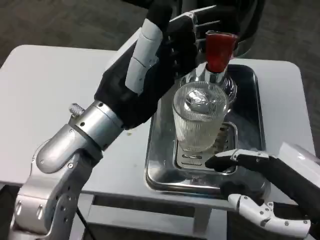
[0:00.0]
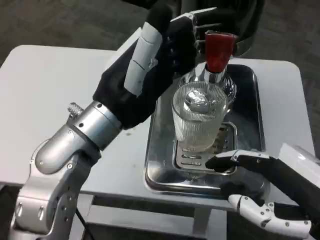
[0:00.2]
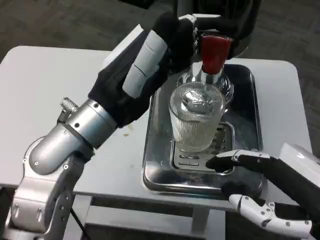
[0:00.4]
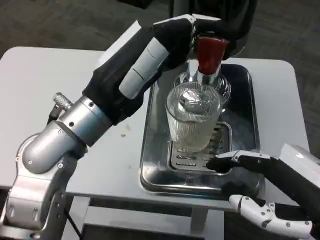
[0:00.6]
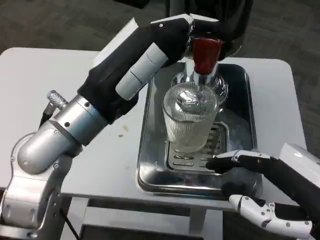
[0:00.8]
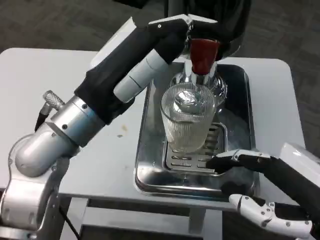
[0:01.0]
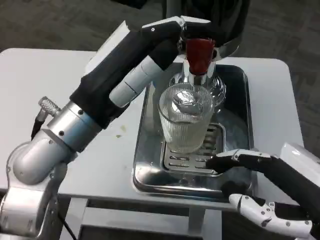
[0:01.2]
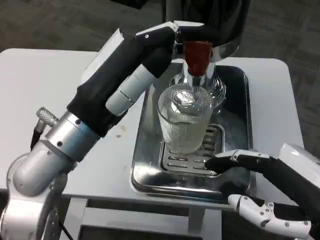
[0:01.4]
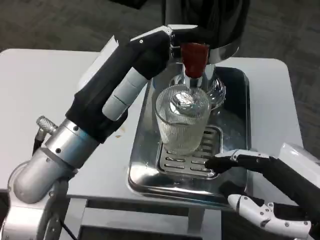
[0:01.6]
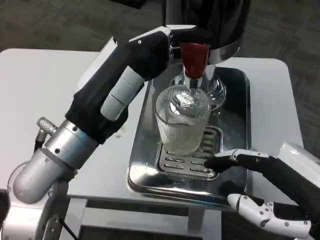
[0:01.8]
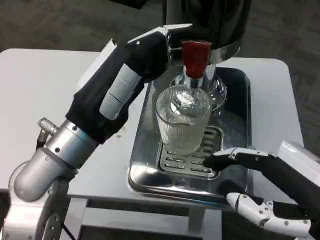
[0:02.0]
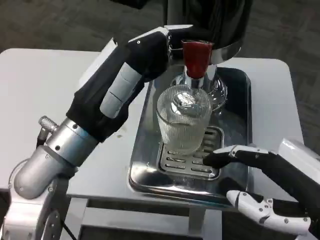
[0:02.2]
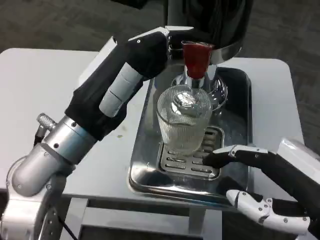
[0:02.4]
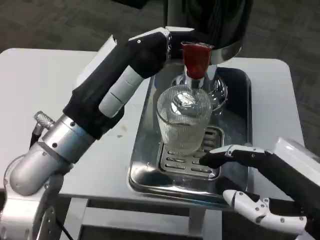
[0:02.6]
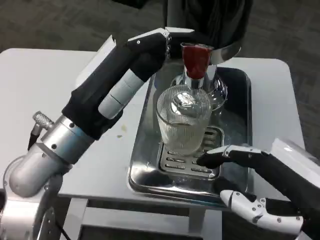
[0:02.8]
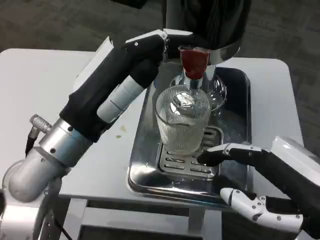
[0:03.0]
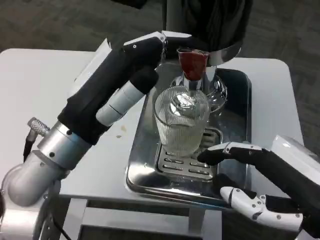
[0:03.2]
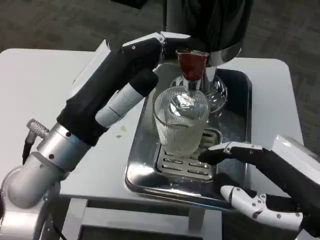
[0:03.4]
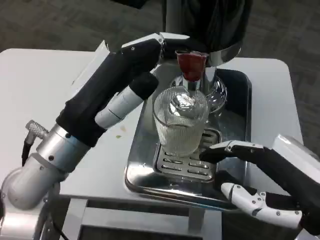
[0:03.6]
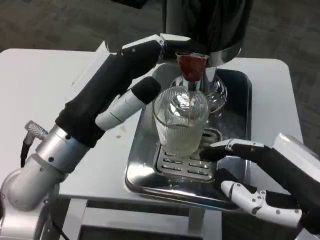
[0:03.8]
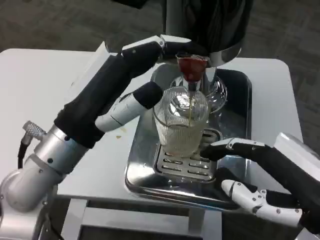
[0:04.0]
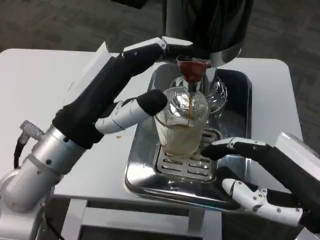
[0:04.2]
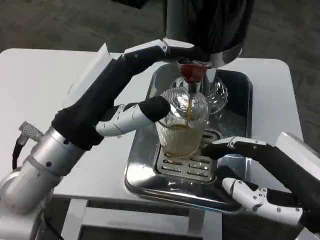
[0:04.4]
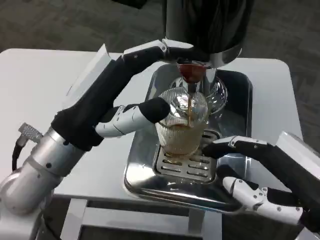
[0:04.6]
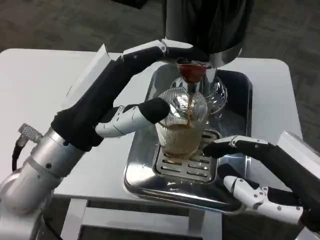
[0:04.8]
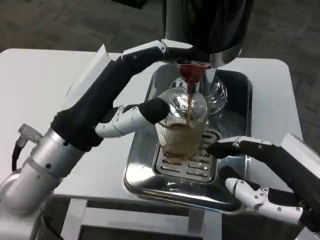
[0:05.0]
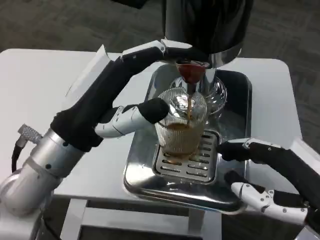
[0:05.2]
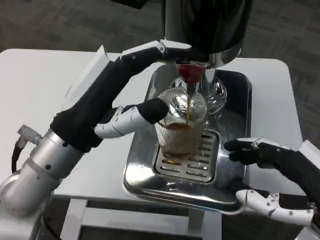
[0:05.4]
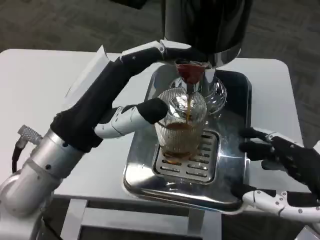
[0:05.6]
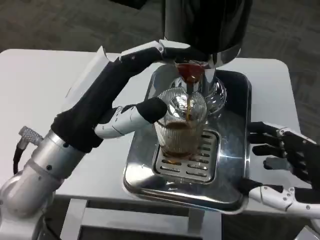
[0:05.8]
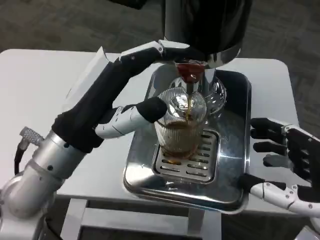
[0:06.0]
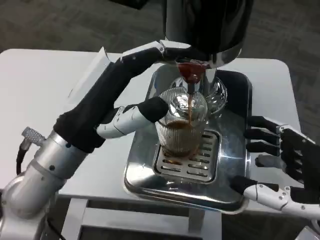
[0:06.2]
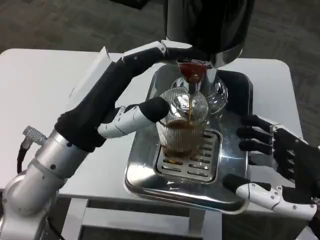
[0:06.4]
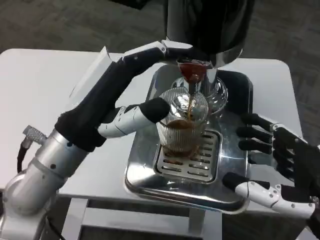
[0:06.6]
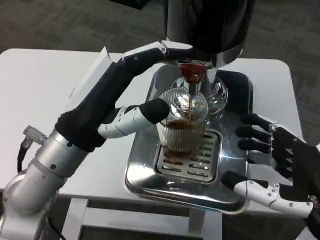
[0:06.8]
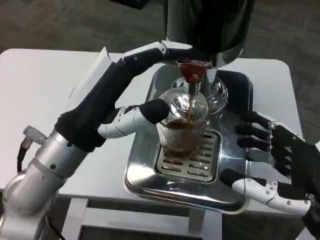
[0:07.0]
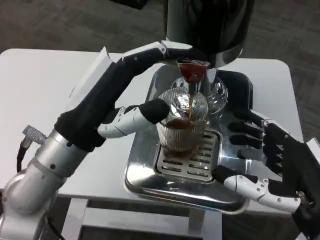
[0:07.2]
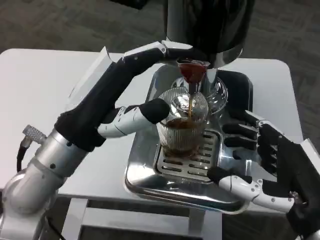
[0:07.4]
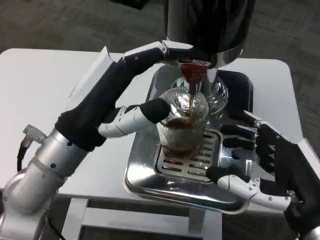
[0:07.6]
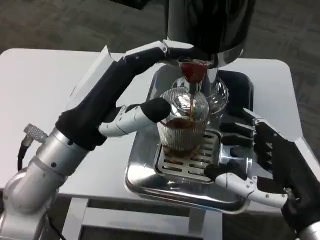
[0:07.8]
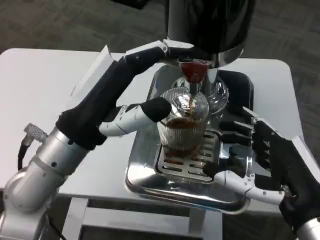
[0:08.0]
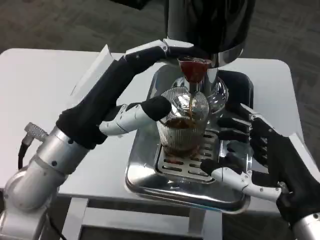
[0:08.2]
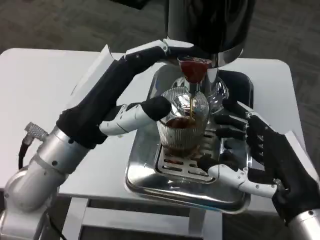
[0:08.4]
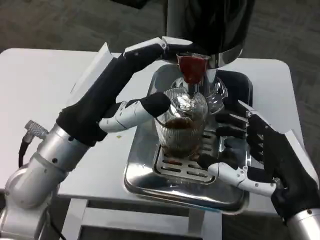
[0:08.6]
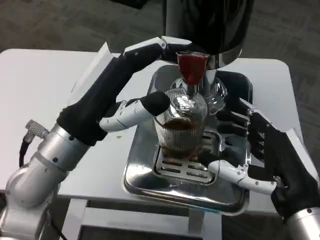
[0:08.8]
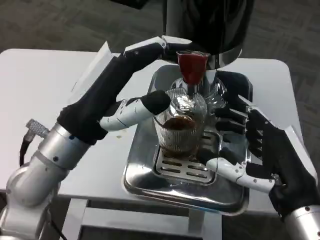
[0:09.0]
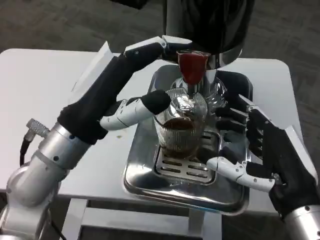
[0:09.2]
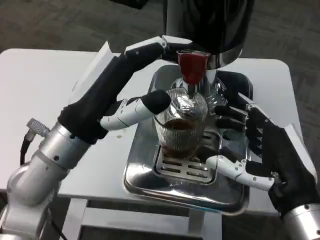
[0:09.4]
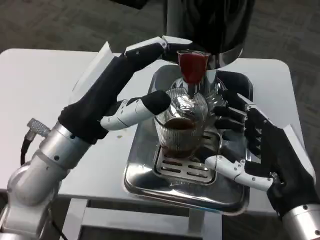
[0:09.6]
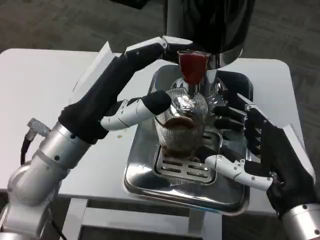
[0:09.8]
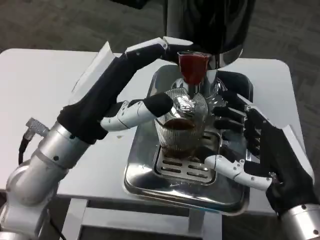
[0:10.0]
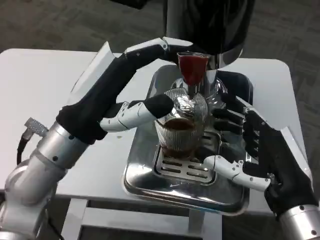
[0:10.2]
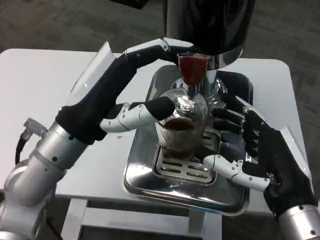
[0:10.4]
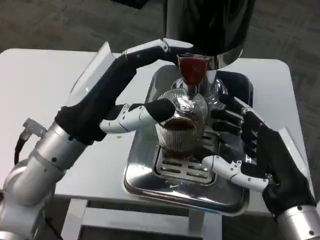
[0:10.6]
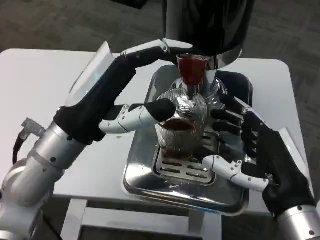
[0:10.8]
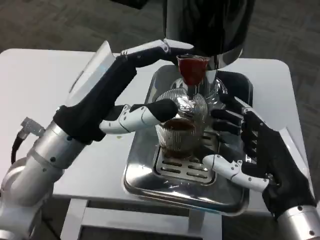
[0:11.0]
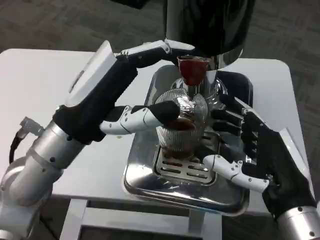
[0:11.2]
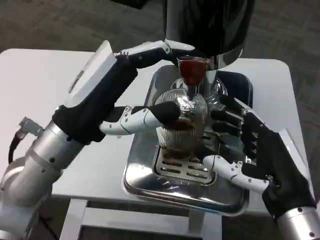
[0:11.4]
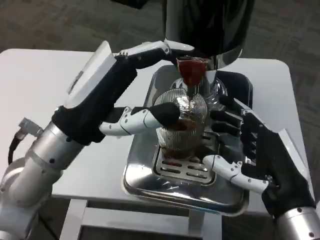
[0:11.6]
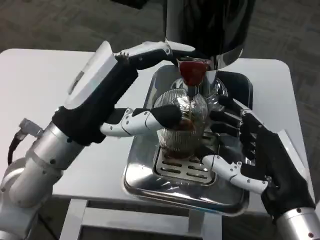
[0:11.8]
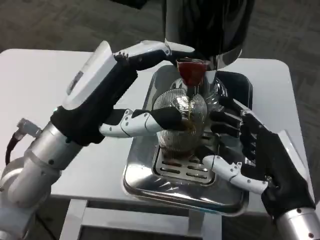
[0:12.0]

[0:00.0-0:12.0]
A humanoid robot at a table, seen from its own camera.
Task of the whole recording: Grasp the cup under the faucet to collect the drink, then remove the cup.
0:01.6 to 0:03.0: The hands make only small movements.
0:06.0 to 0:07.6: The right hand ends up roughly 5 cm from where it was.
0:09.0 to 0:12.0: The hands move only a little.

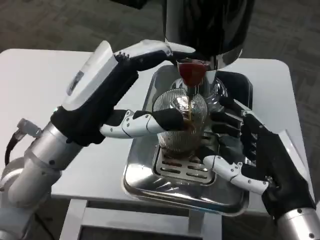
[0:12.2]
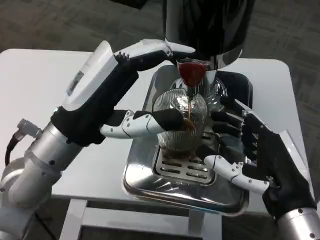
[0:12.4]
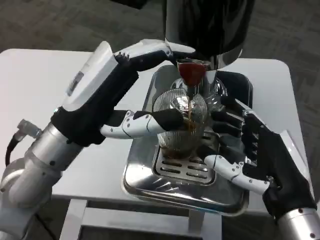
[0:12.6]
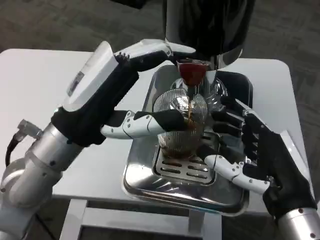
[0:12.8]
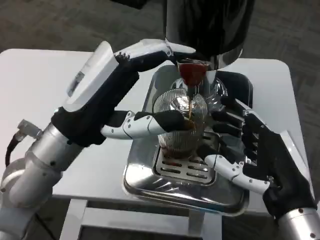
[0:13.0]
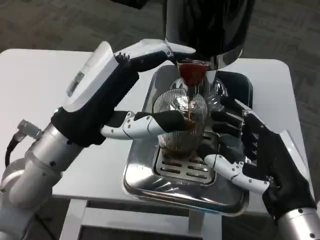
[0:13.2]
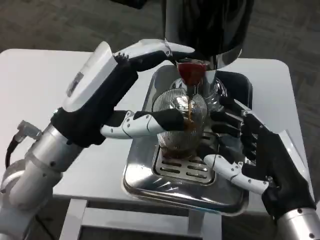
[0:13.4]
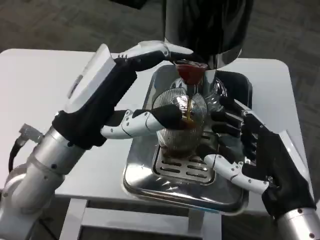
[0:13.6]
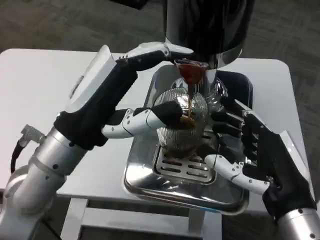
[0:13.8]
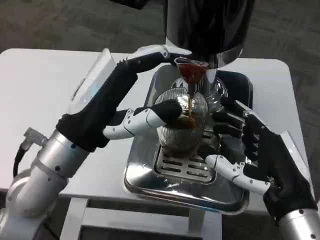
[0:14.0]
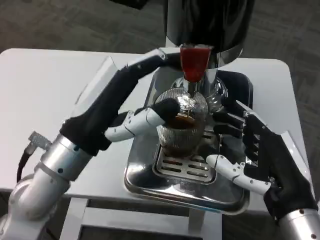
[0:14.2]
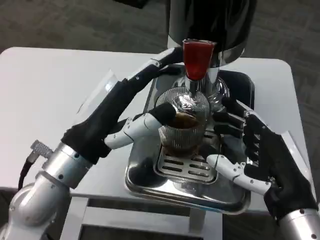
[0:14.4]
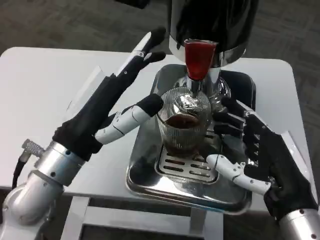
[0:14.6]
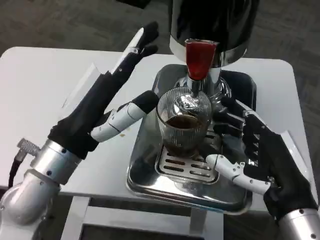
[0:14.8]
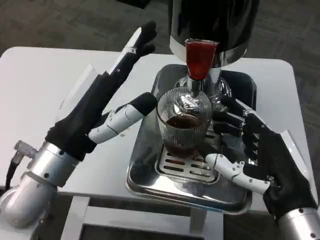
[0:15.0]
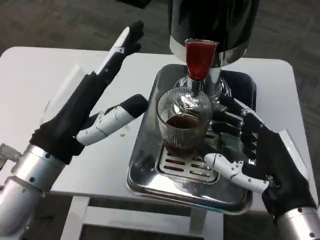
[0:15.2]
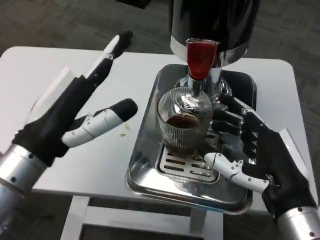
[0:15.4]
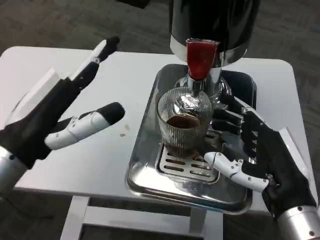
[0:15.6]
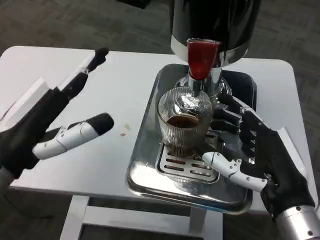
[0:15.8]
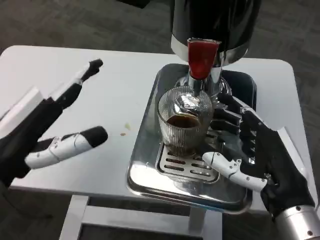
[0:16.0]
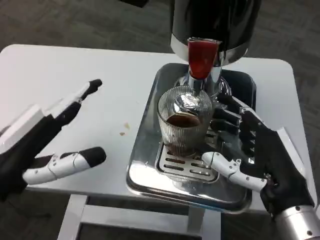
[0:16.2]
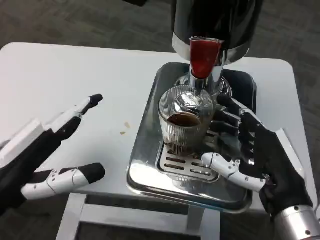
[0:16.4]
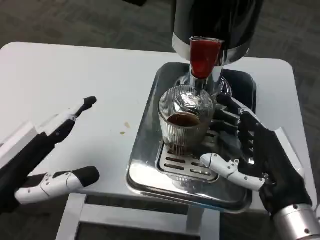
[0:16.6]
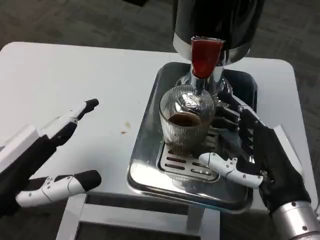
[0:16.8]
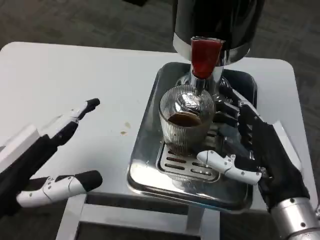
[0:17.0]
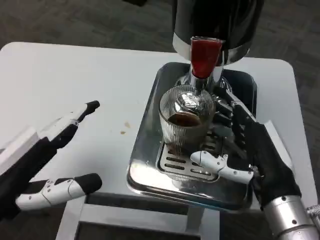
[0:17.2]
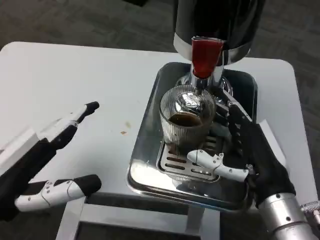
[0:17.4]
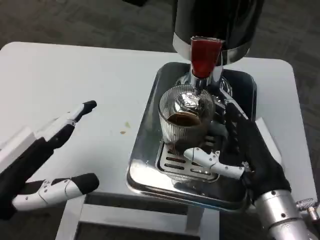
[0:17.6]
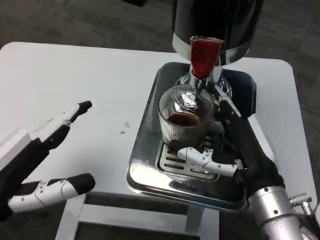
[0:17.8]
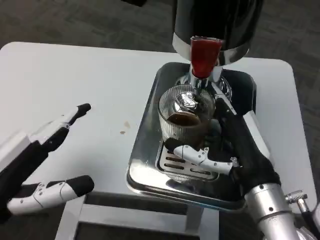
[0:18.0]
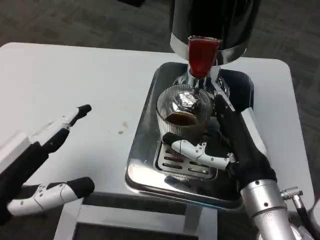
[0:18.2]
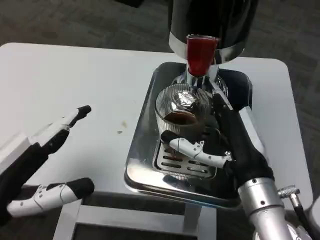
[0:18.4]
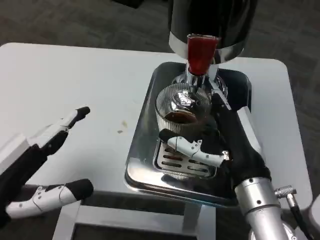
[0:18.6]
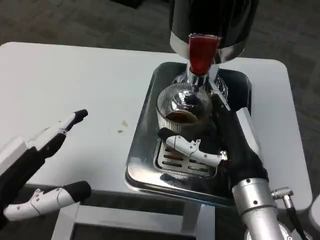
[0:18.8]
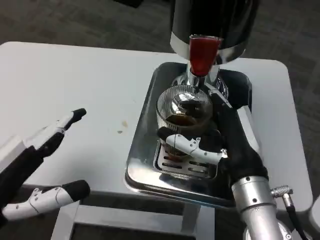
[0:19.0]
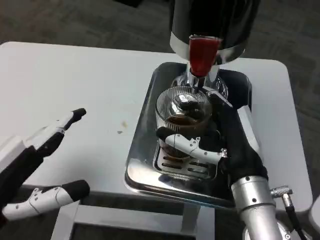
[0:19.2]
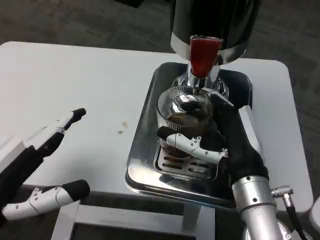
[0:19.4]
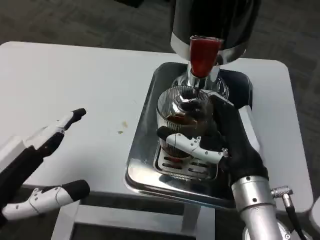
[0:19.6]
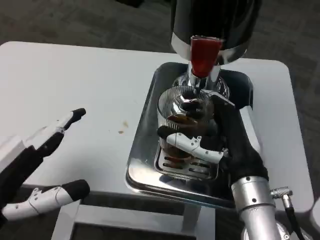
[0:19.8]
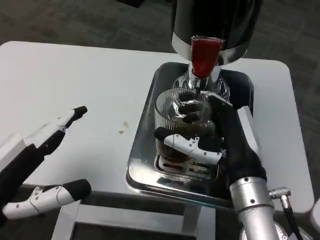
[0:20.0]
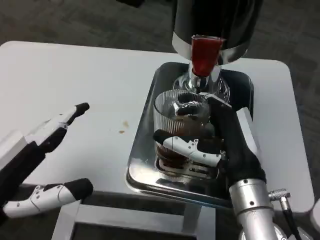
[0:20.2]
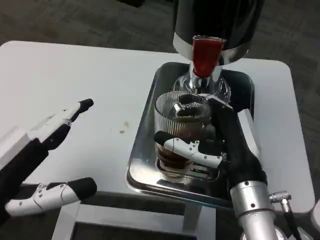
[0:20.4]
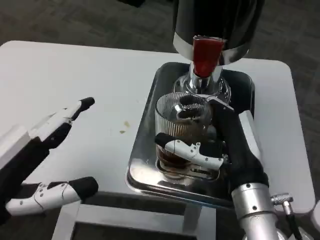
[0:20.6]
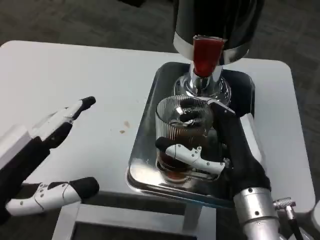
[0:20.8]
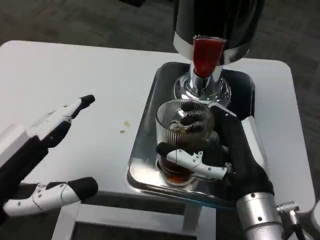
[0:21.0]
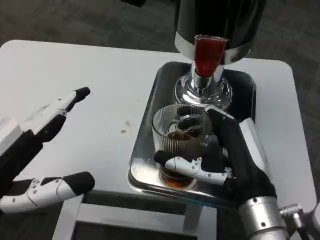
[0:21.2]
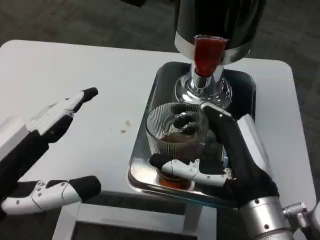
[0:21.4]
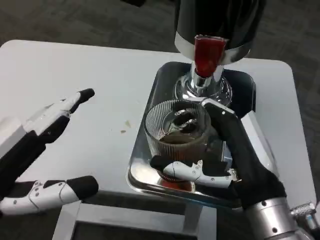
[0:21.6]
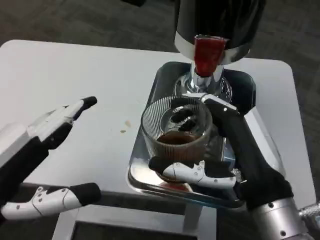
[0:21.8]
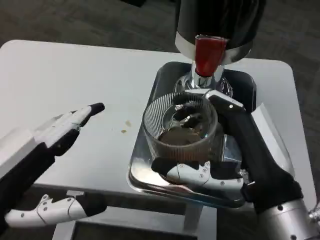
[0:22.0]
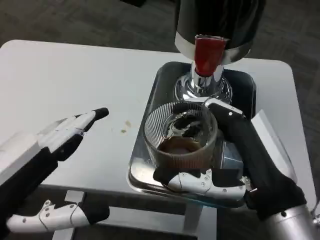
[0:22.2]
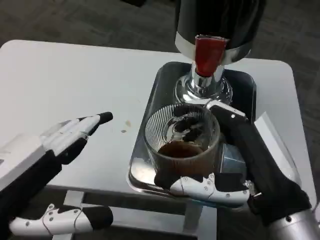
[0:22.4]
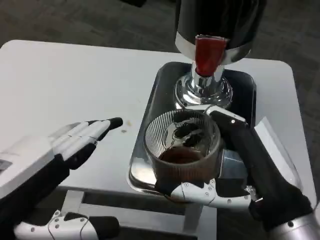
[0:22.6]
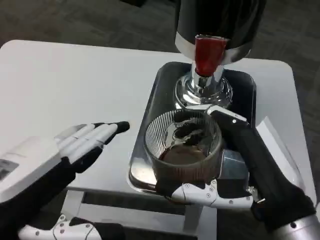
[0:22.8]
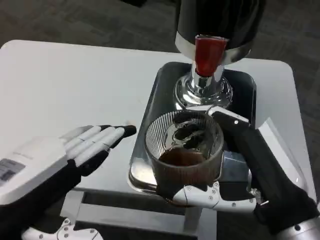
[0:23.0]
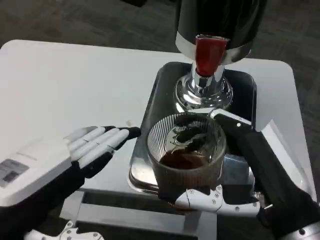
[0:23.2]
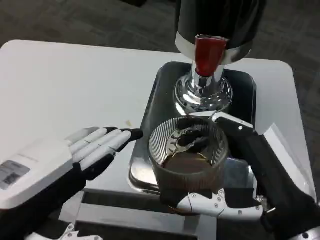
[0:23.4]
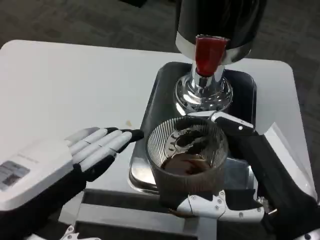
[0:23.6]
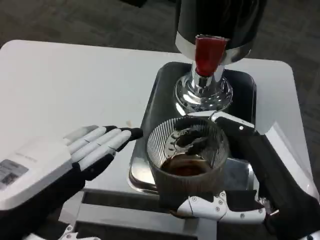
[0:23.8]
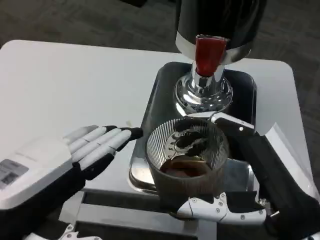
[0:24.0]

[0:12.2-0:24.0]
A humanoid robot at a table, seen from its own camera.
Task of the whole recording: Grasp the cup under the faucet to collect the drink, then remove the cup.
0:12.2 to 0:13.6: Both hands stay about where they are.
0:15.2 to 0:16.6: The left hand shifts about 10 cm to the left and backward.
0:16.6 to 0:18.2: The right hand changes place by approximately 5 cm.
0:18.2 to 0:19.6: The hands stay close to where they were, moving slightly.
0:21.0 to 0:22.6: The right hand is displaced backward by about 5 cm.
